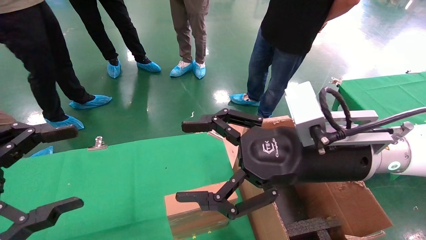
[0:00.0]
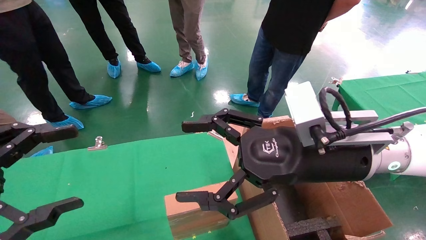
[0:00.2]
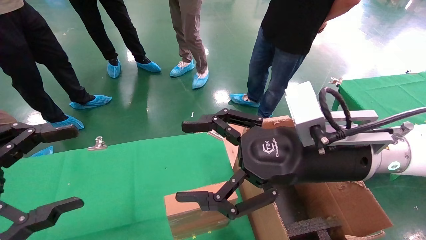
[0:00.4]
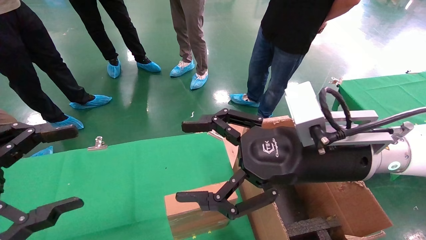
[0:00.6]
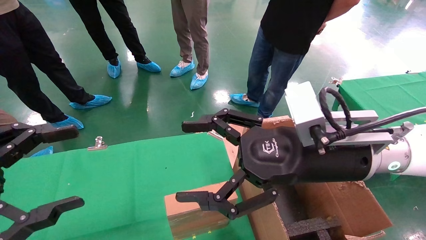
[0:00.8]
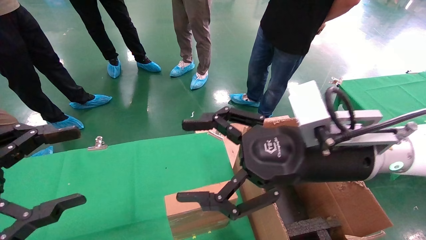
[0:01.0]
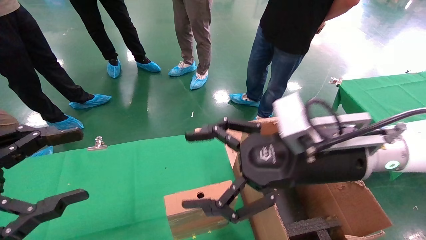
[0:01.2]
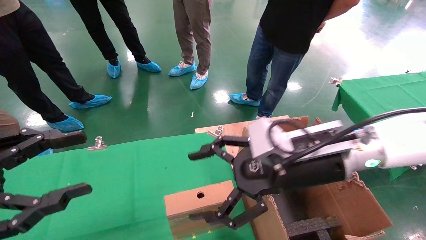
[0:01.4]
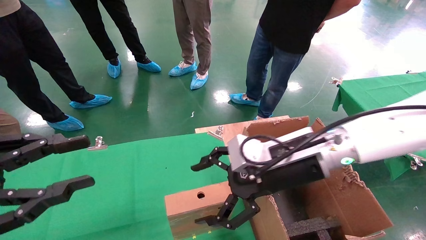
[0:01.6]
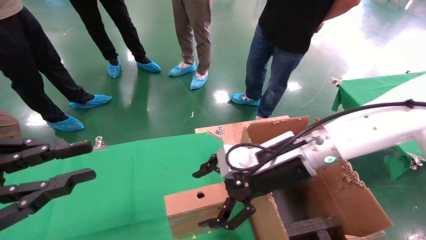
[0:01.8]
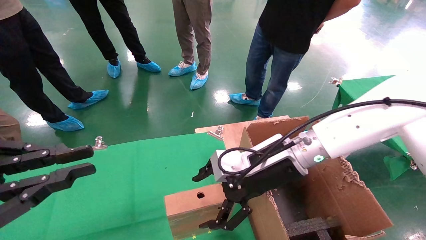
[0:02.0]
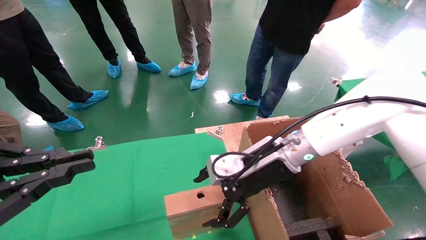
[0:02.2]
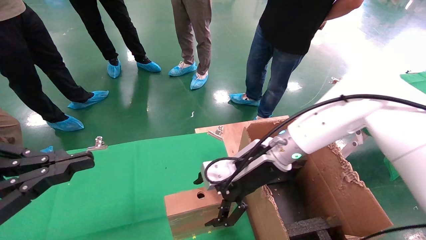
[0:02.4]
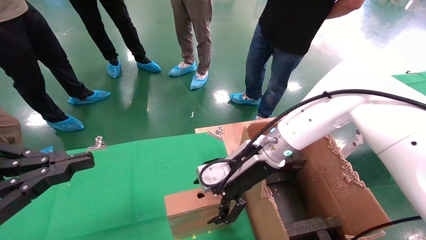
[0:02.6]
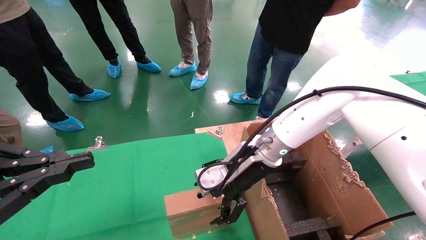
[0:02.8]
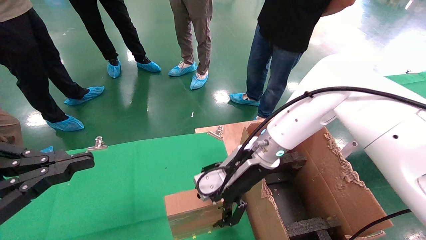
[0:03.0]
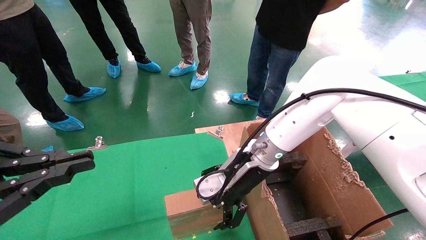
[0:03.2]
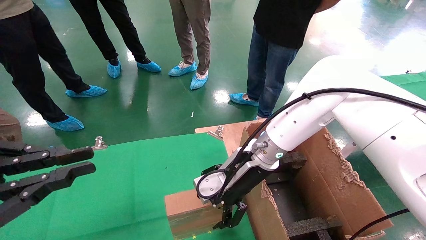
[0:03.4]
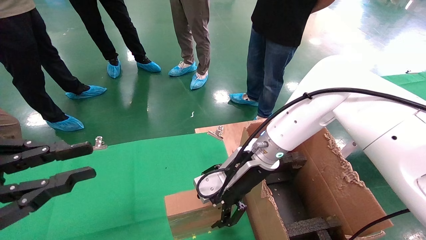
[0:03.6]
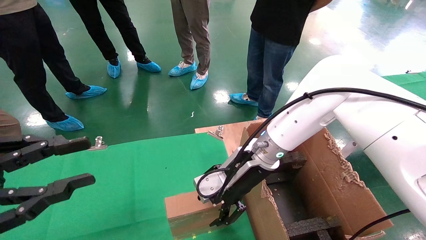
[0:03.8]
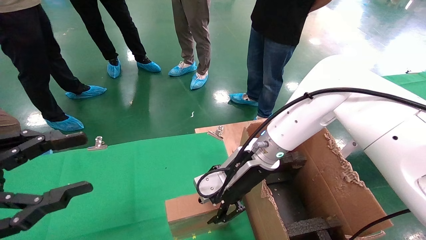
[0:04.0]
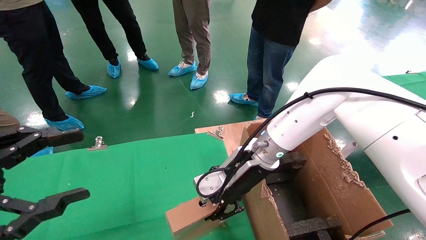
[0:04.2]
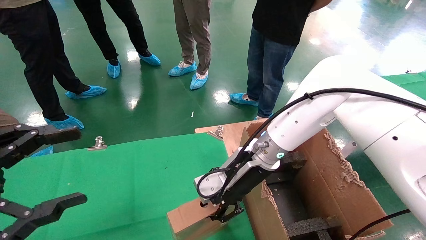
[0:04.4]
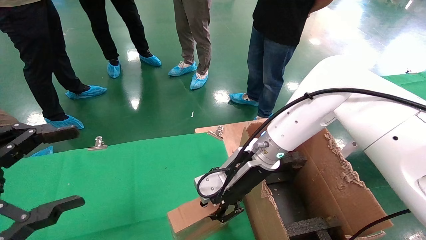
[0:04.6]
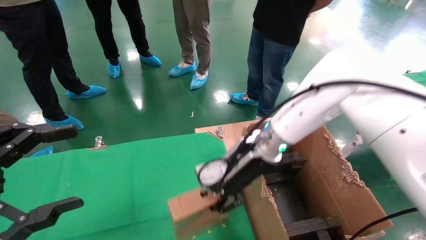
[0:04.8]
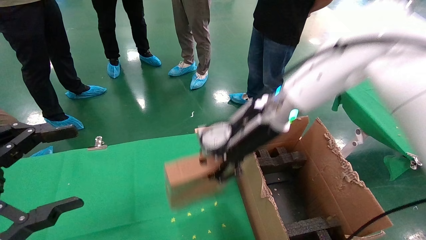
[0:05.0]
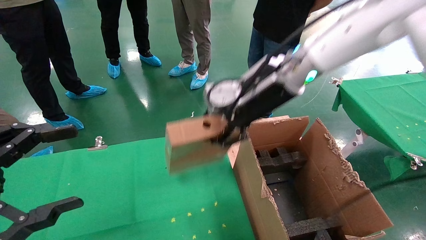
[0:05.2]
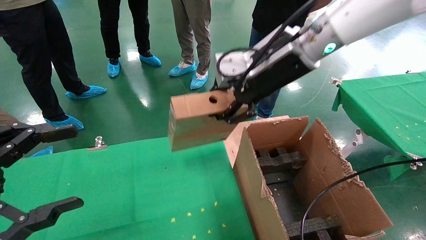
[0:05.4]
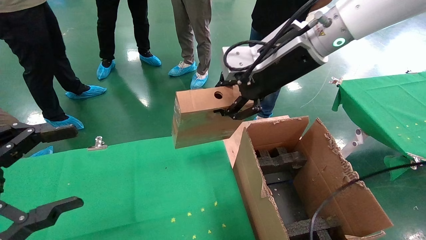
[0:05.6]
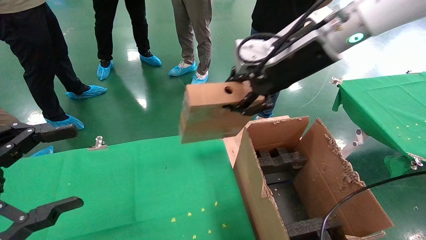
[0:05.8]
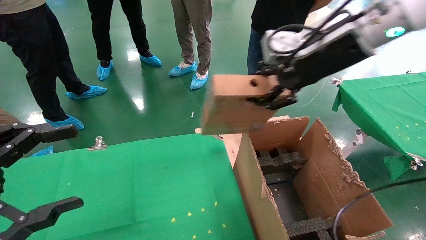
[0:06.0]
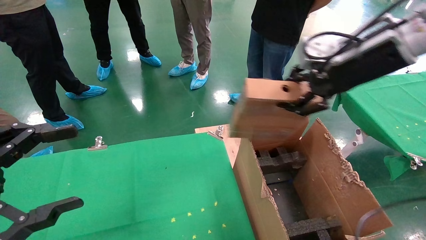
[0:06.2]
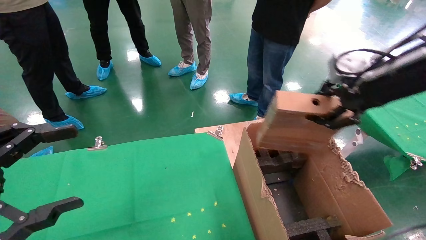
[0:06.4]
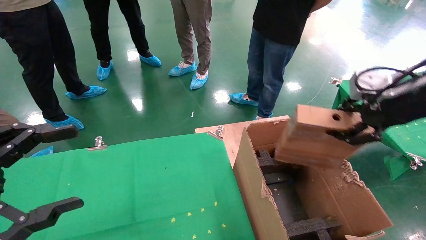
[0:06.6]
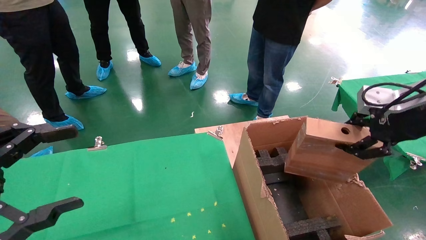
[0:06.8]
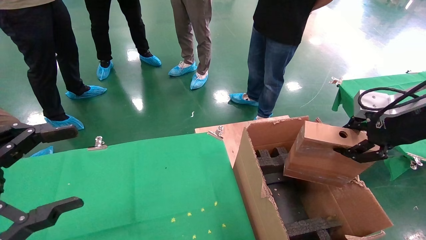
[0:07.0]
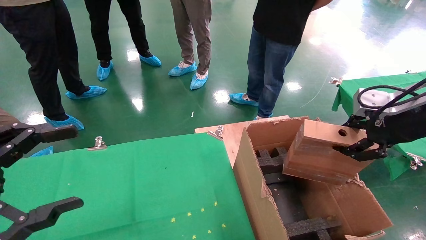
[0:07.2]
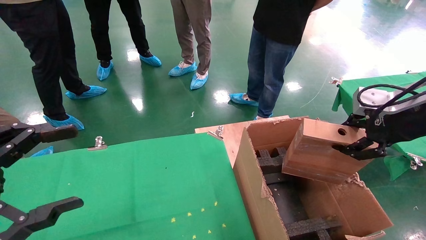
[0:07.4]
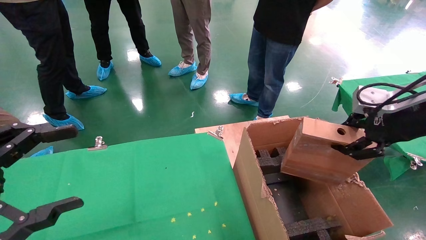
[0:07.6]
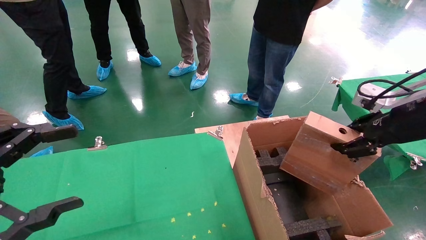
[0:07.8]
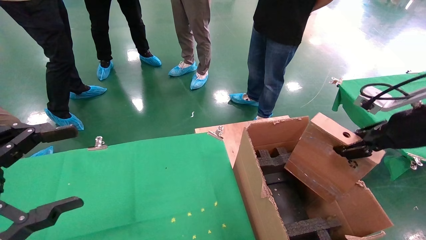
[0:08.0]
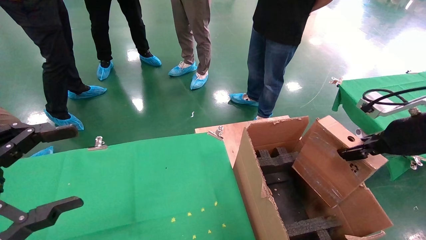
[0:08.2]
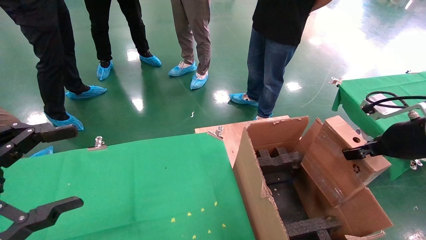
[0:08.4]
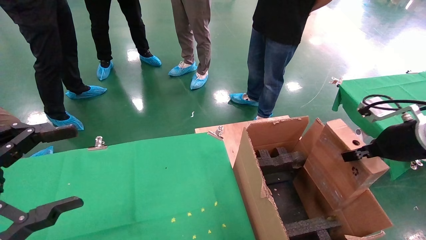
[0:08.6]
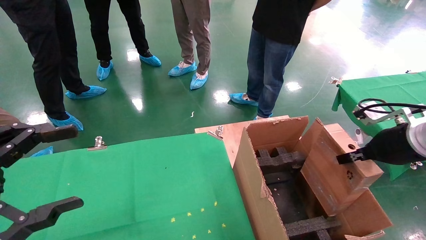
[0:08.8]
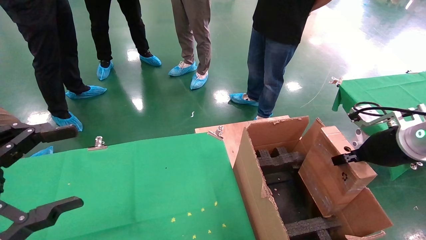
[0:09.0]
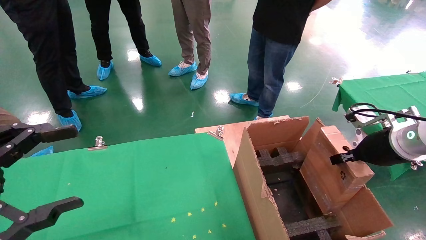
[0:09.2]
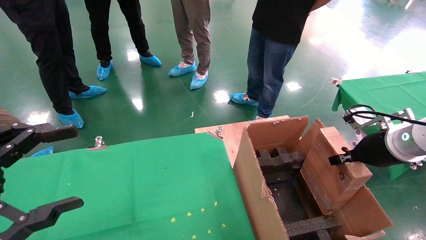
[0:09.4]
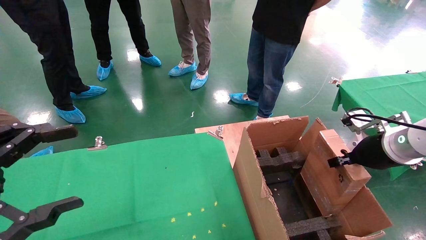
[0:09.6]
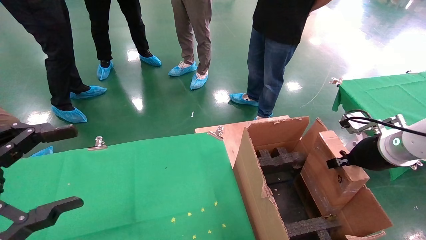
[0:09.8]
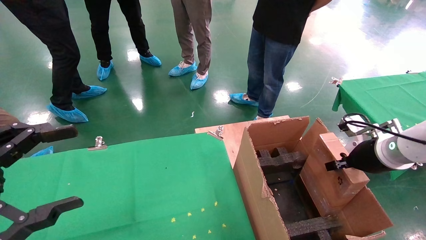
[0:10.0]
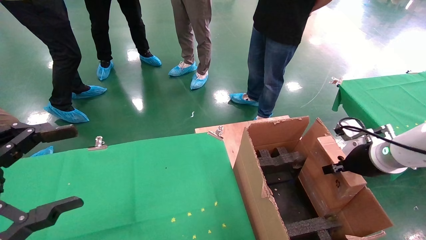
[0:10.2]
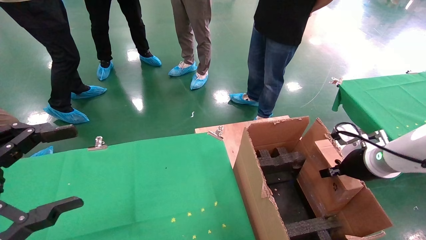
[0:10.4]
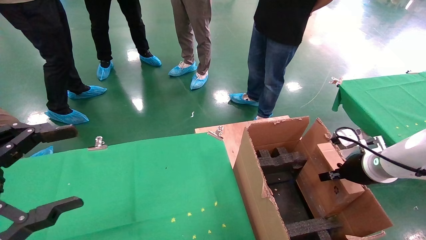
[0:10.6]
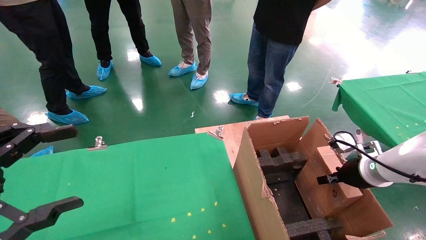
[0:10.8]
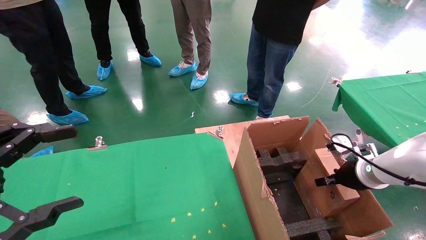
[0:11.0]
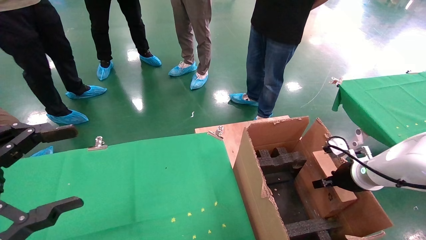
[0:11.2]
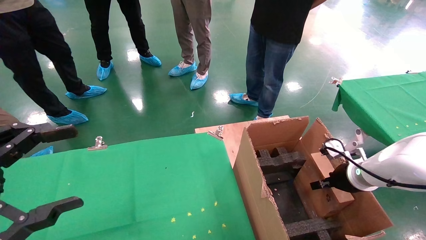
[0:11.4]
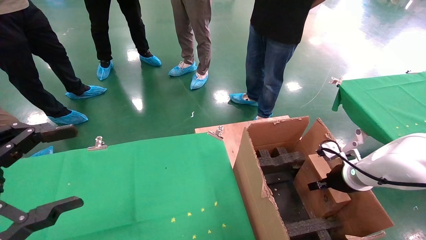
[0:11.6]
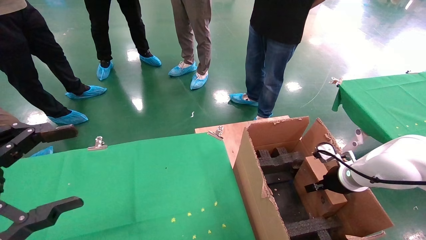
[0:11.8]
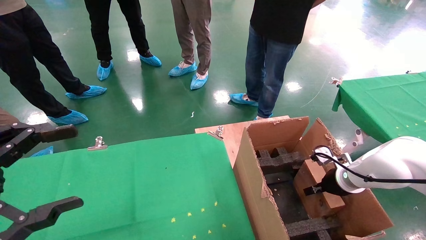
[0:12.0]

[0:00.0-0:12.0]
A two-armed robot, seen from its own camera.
Task of the whole recording: using a robotic arm to pick up a cardboard box and palace it the carton.
Step, 0:01.2 to 0:04.2: Pick up the mouse and the power cord paper box.
0:00.0 to 0:01.6: The right gripper is displaced forward by approximately 5 cm. Meanwhile the left gripper closes its fingers.
0:01.6 to 0:03.0: The right gripper goes approximately 10 cm forward and to the left; the left gripper closes up.
0:03.0 to 0:04.4: The right gripper closes its fingers; the left gripper opens its fingers.
0:04.4 to 0:06.0: The right gripper heads upward and to the right, covering roughly 25 cm.
0:06.0 to 0:07.6: The right gripper goes some 20 cm to the right, downward and backward.
0:07.6 to 0:09.0: The right gripper heads downward, covering roughly 10 cm.
0:09.0 to 0:10.4: The right gripper goes approximately 5 cm downward.
0:10.4 to 0:12.0: The right gripper moves downward and forward, about 10 cm.

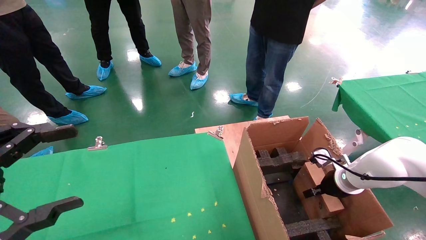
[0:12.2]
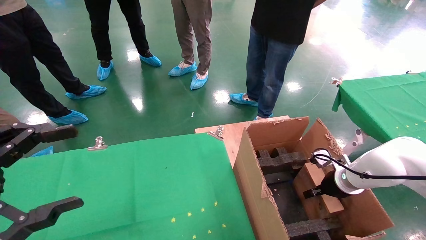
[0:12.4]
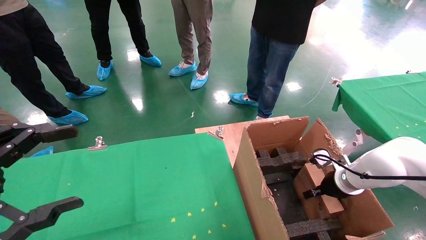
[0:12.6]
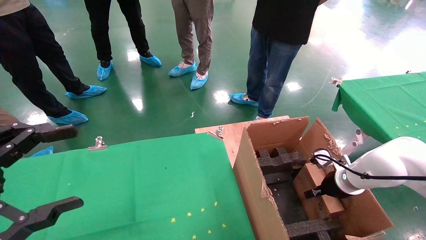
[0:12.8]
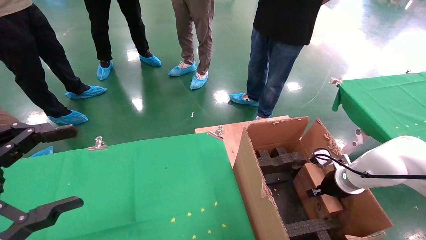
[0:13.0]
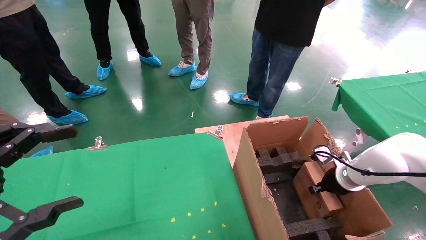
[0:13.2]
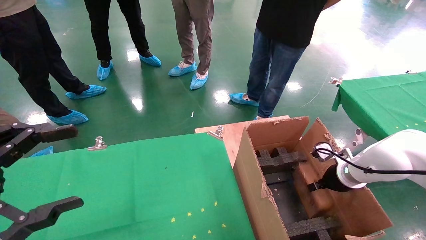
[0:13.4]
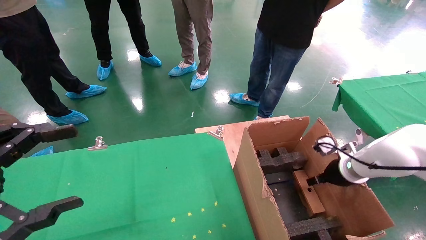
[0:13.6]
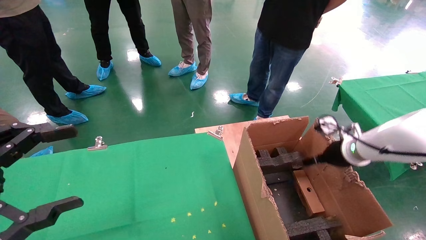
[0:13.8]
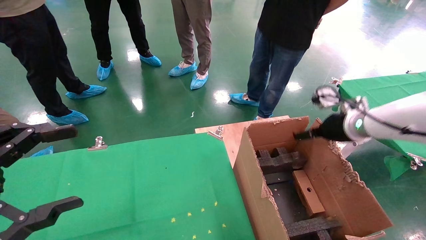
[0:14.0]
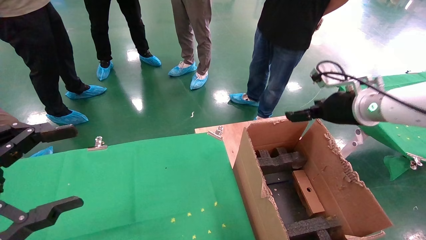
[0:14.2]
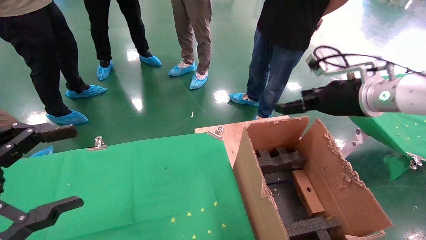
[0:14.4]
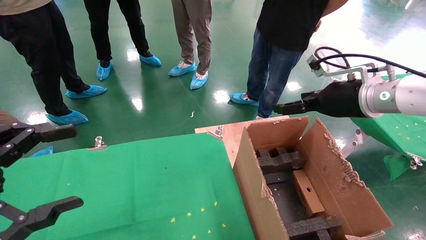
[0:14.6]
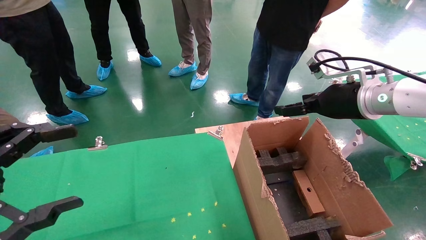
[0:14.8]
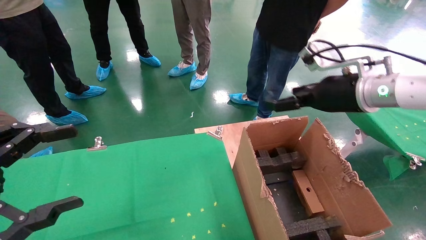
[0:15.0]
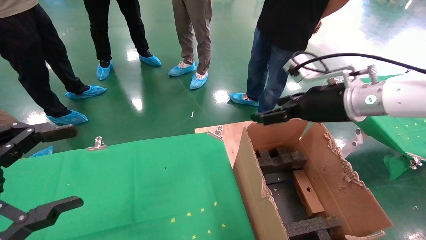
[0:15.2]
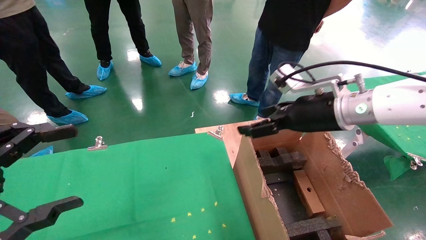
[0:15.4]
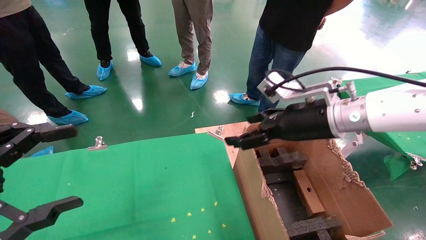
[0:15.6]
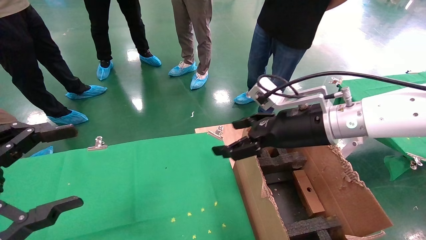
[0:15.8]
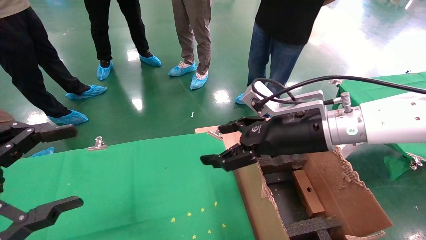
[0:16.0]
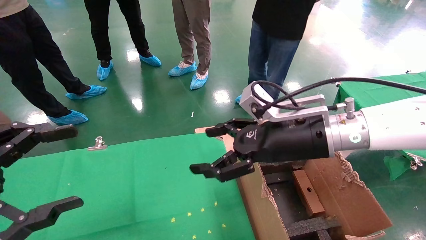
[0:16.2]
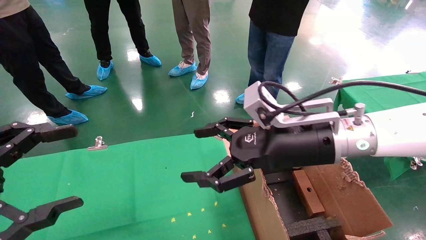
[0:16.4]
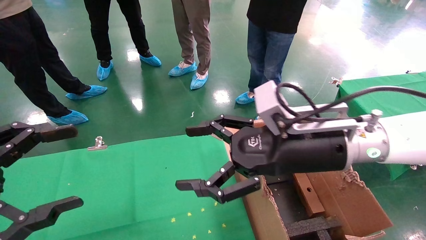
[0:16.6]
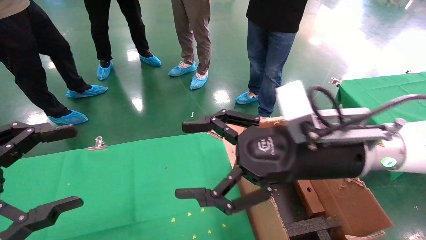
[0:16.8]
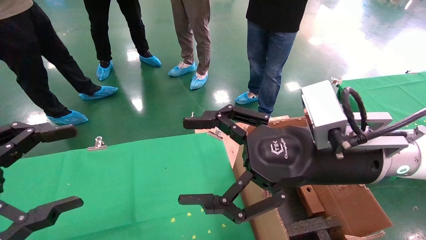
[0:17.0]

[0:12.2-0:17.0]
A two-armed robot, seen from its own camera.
Task of the whole recording: using a robotic arm to pick up a cardboard box and palace it the carton.
0:12.2 to 0:13.8: The right gripper is displaced upward by roughly 10 cm, and opens.
0:13.8 to 0:15.4: The right gripper heads to the left, upward and backward, covering some 15 cm.
0:15.4 to 0:17.0: The right gripper shifts roughly 10 cm backward and to the left.
